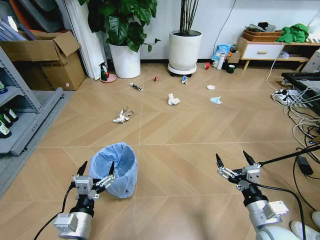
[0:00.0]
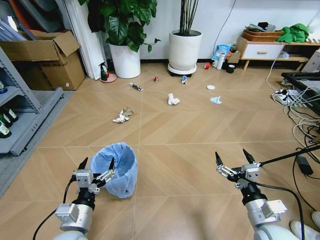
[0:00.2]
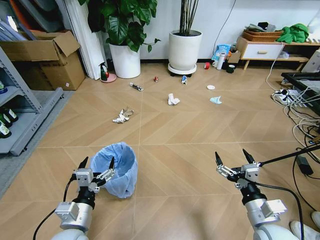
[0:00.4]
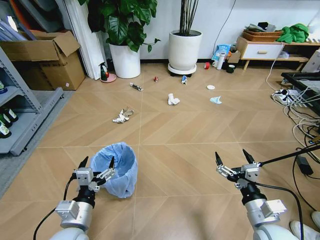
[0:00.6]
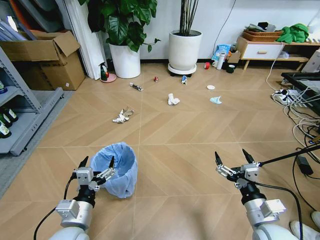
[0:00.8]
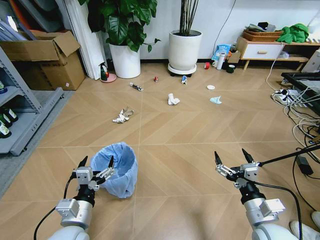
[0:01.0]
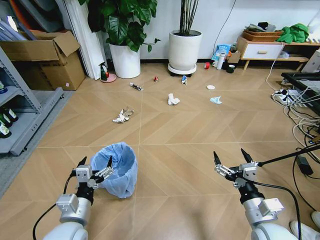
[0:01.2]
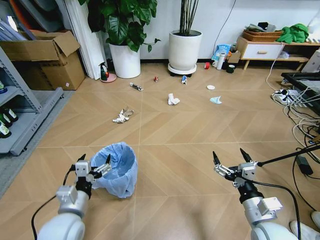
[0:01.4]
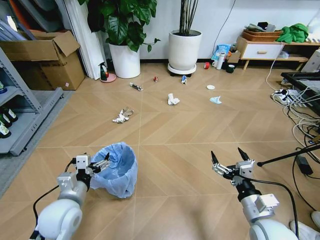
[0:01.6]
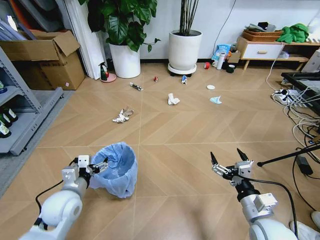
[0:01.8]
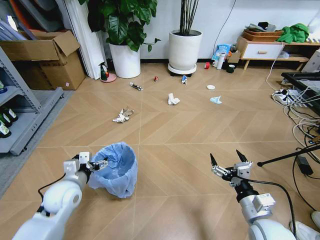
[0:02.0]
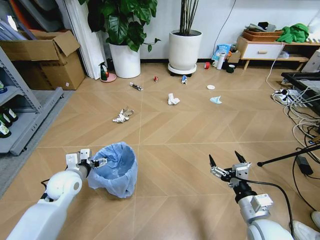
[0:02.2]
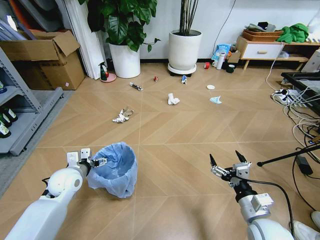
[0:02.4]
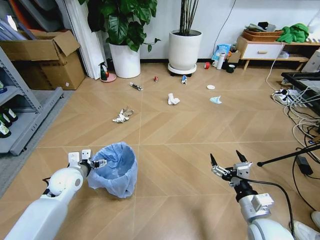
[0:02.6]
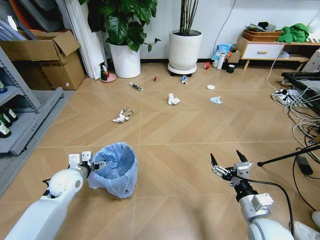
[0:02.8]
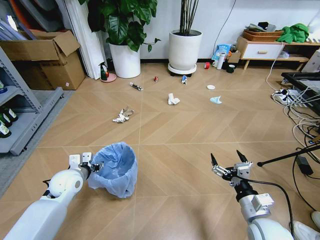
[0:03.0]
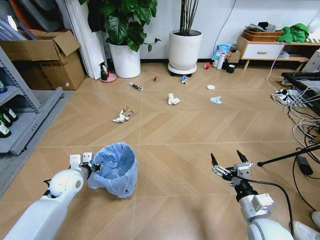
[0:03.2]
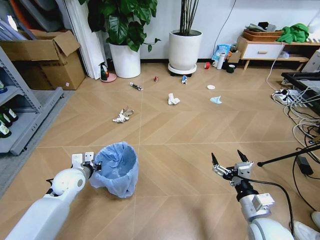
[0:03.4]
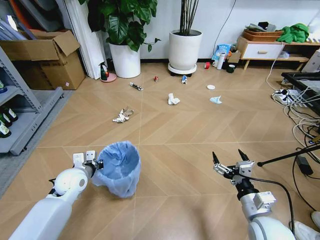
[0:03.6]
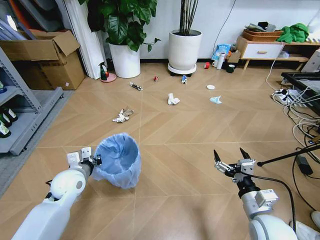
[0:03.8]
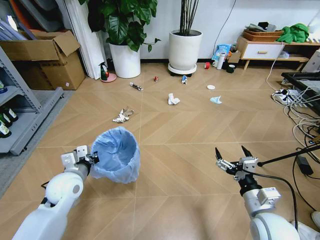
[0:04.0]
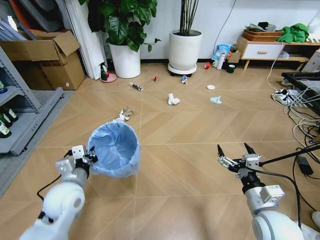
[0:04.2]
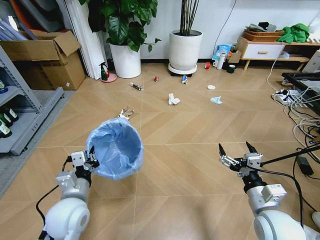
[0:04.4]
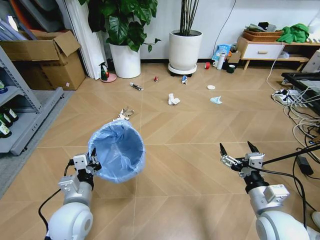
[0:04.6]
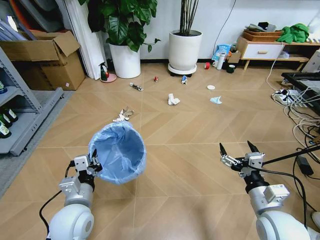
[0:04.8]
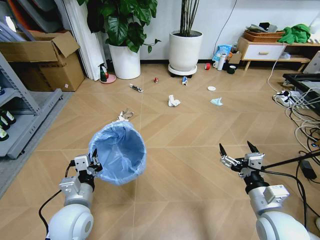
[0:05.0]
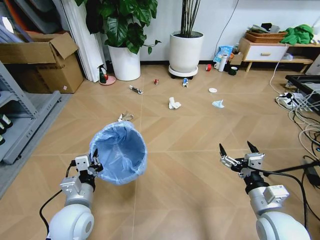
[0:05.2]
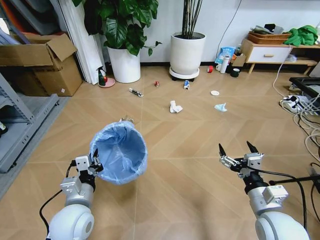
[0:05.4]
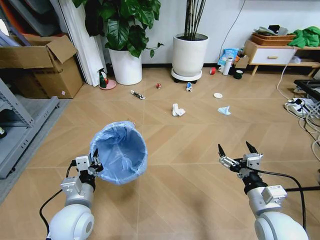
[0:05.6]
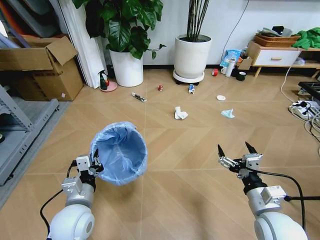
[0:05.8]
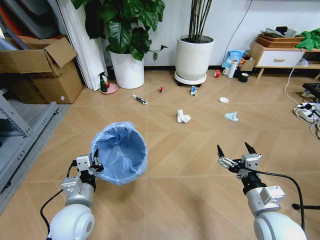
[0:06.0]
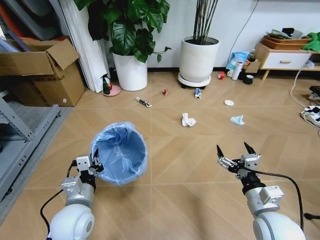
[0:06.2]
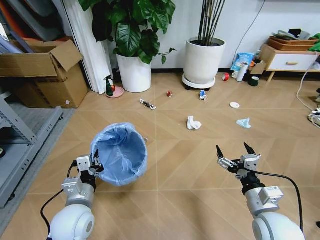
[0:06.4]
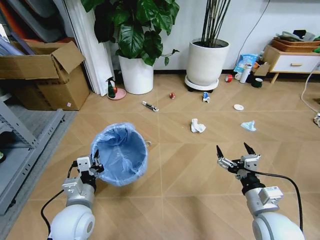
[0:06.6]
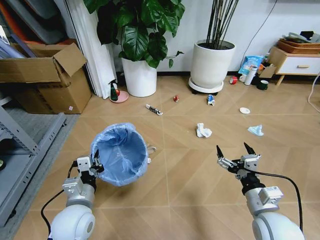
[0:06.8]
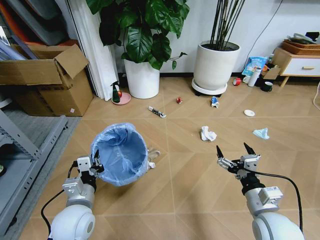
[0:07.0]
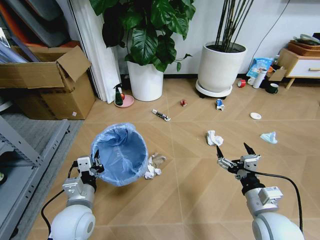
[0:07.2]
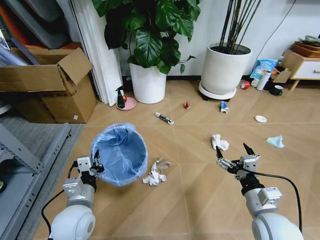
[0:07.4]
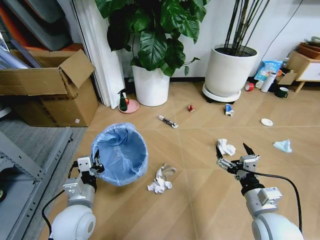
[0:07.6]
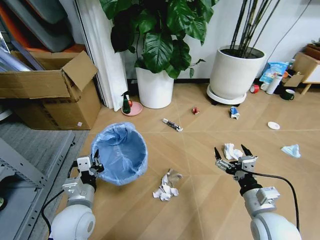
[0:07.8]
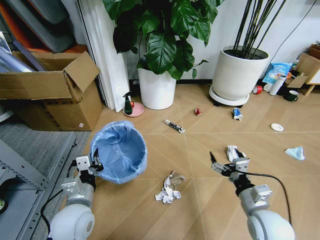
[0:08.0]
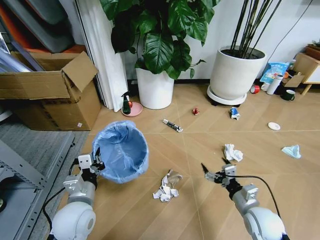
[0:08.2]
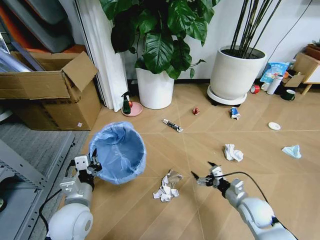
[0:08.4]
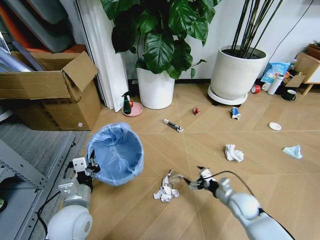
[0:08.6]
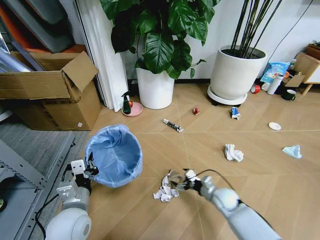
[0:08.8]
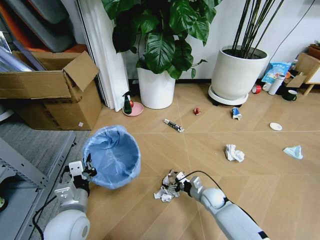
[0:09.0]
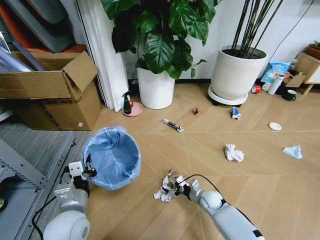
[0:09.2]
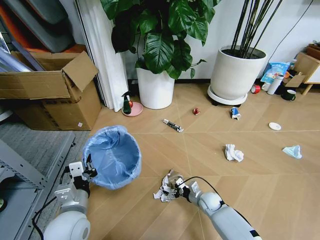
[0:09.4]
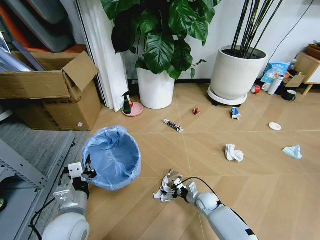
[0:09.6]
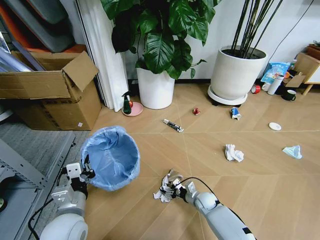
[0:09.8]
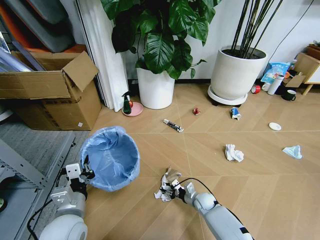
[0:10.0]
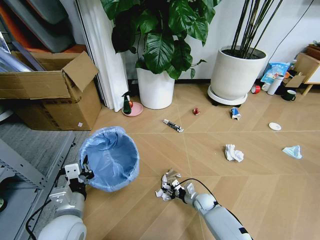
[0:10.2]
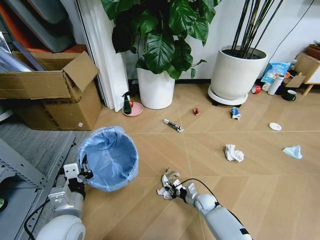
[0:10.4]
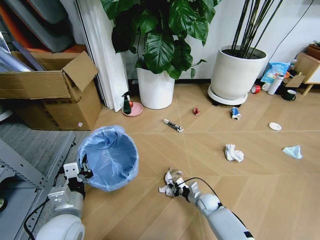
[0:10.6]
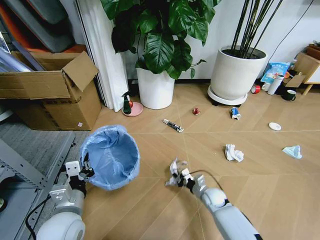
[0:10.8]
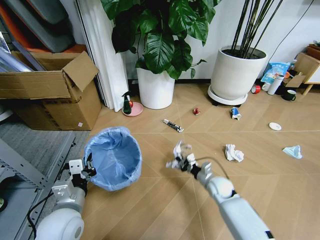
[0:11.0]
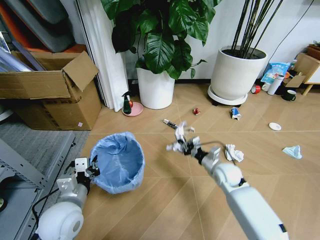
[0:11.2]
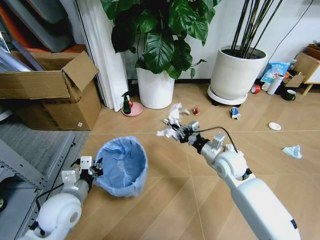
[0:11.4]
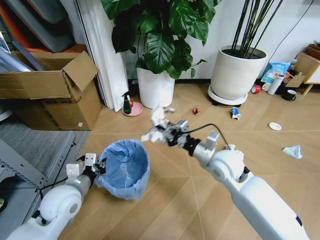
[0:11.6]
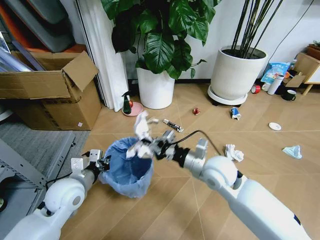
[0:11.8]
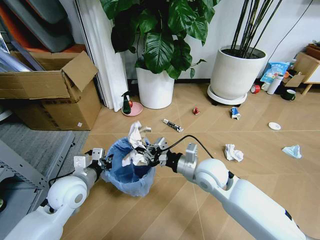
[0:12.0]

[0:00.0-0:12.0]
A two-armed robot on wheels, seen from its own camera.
Task of the whole recording: Pick up the trash bin and place the garbage on the floor into it.
0:01.6 to 0:03.0: The left gripper goes some 15 cm forward and to the left.
0:03.0 to 0:04.4: The left gripper moves backward, to the right and upward, about 15 cm, and closes.
0:07.6 to 0:09.0: The right gripper is displaced downward and forward by roughly 25 cm.
0:09.0 to 0:10.4: The right gripper moves downward, approximately 5 cm, and closes its fingers.
0:10.4 to 0:12.0: The right gripper travels upward by about 30 cm; the left gripper moves forward, approximately 10 cm.

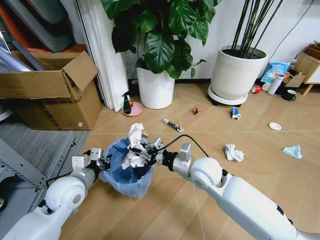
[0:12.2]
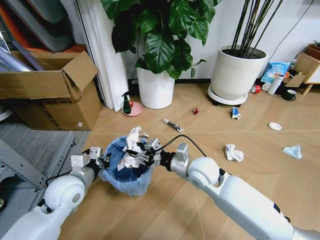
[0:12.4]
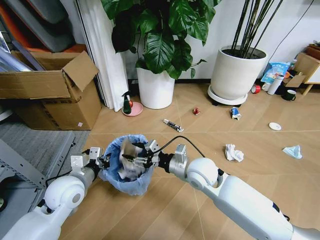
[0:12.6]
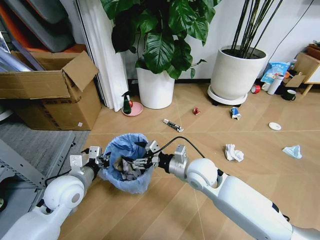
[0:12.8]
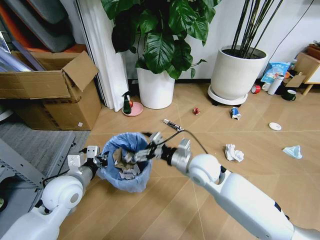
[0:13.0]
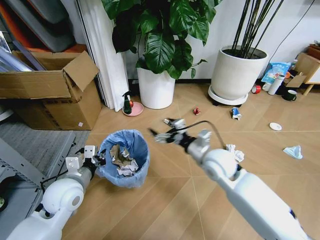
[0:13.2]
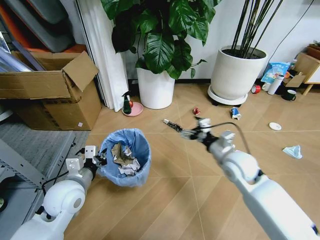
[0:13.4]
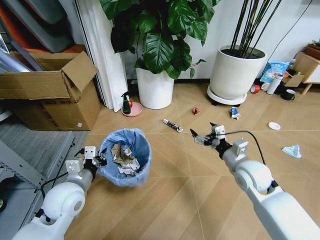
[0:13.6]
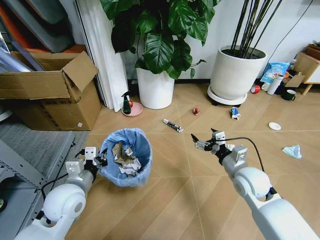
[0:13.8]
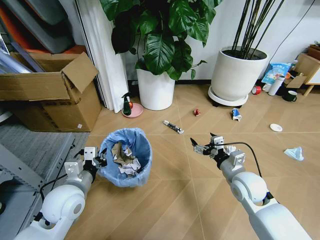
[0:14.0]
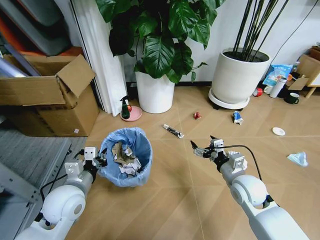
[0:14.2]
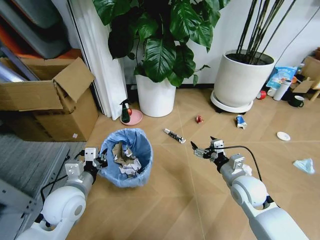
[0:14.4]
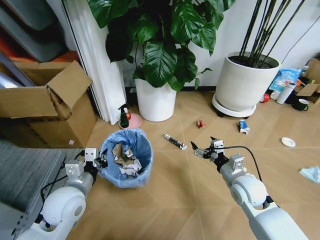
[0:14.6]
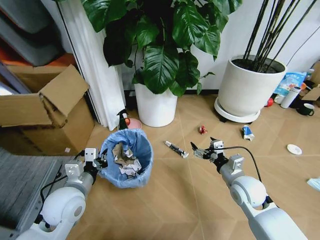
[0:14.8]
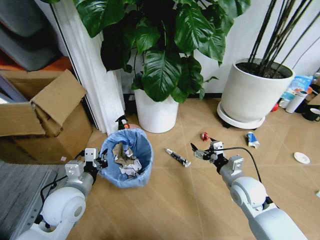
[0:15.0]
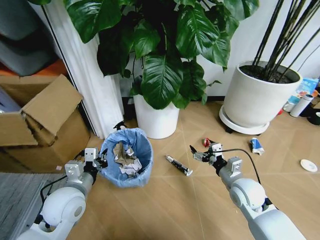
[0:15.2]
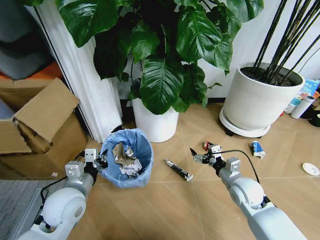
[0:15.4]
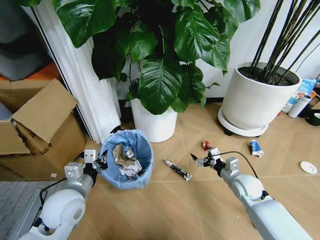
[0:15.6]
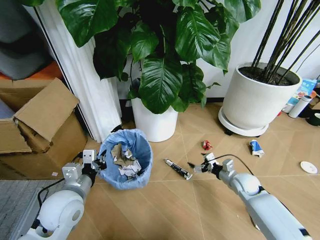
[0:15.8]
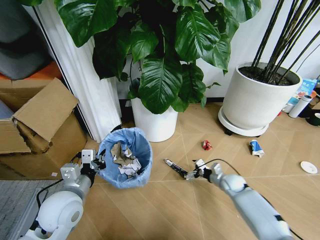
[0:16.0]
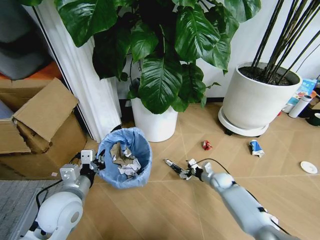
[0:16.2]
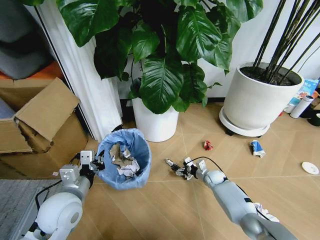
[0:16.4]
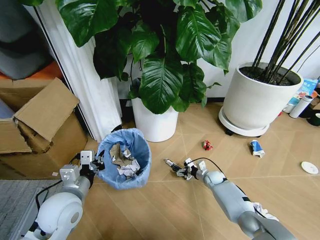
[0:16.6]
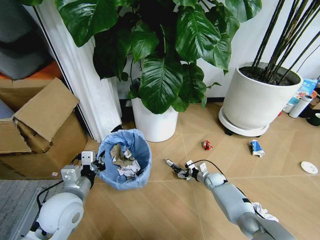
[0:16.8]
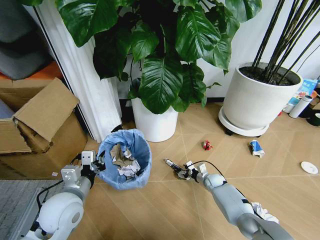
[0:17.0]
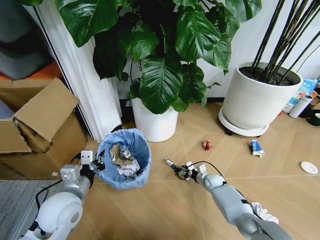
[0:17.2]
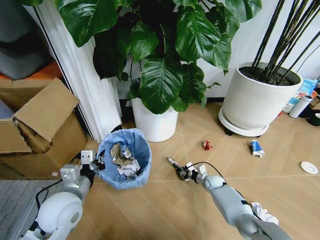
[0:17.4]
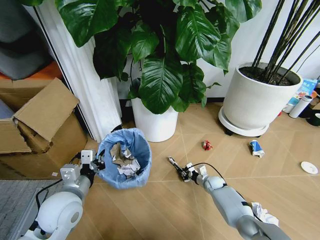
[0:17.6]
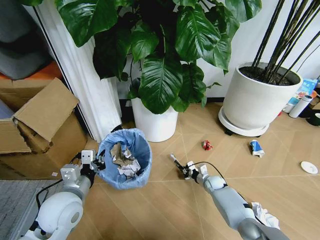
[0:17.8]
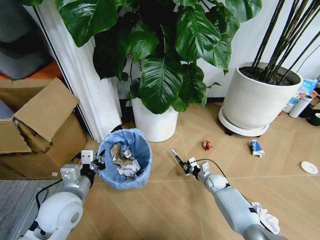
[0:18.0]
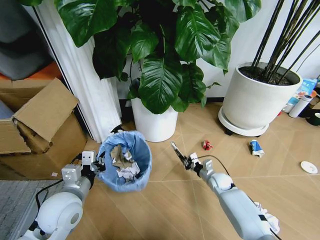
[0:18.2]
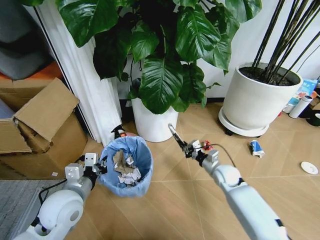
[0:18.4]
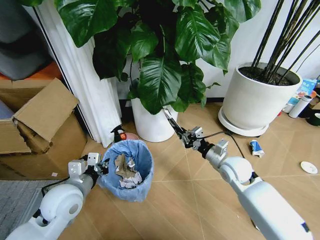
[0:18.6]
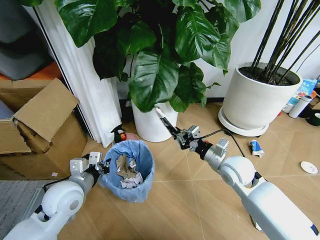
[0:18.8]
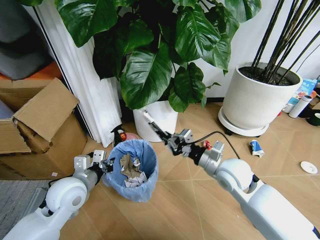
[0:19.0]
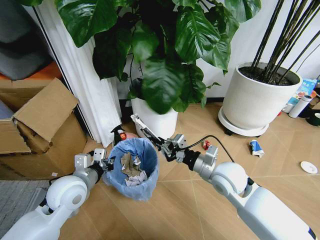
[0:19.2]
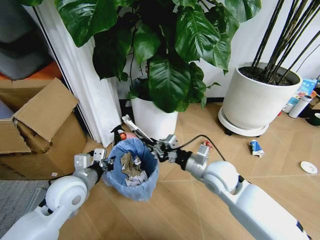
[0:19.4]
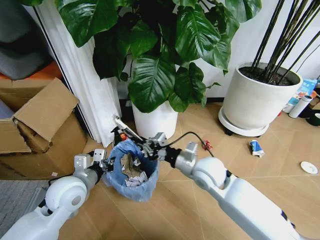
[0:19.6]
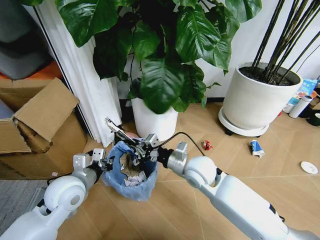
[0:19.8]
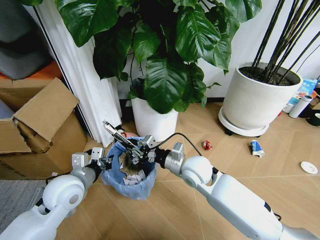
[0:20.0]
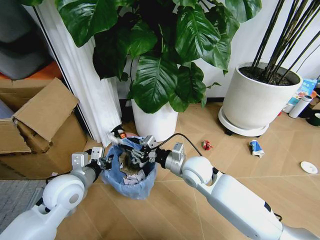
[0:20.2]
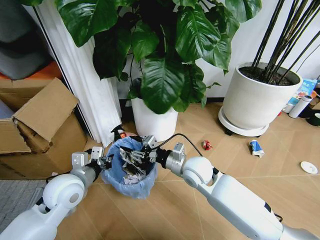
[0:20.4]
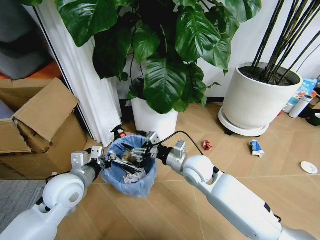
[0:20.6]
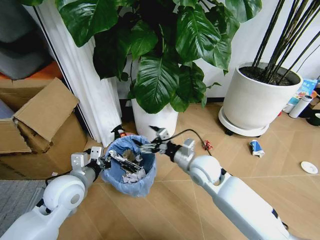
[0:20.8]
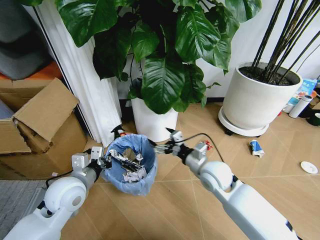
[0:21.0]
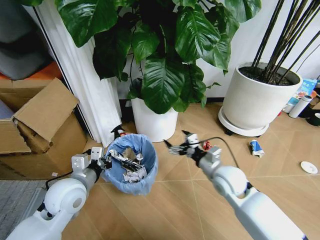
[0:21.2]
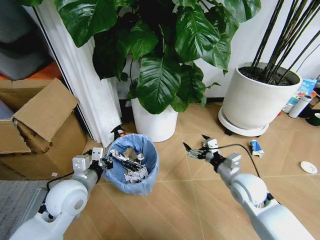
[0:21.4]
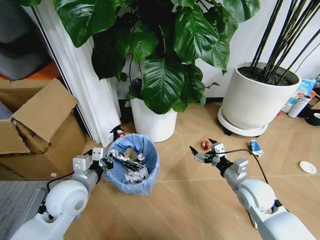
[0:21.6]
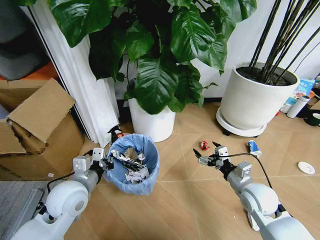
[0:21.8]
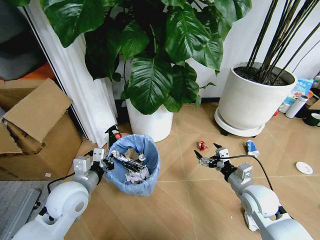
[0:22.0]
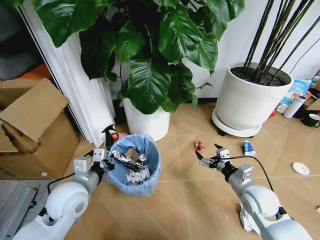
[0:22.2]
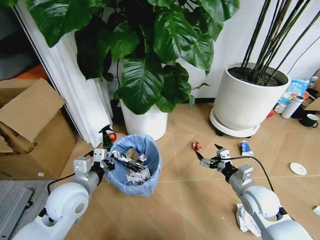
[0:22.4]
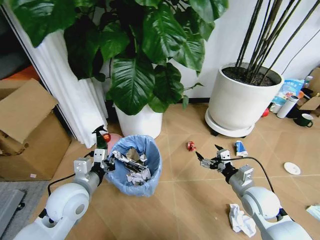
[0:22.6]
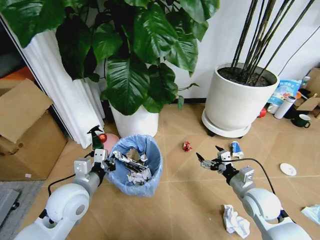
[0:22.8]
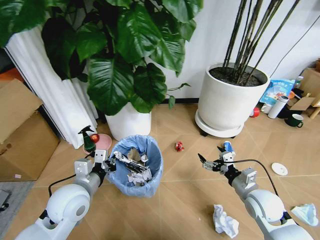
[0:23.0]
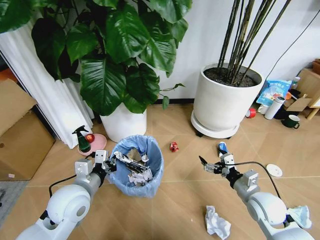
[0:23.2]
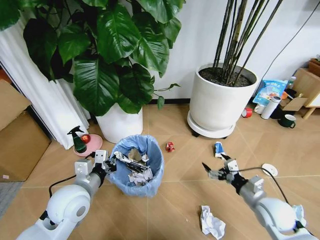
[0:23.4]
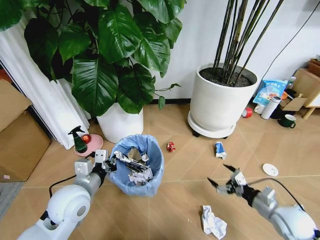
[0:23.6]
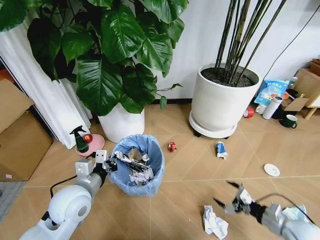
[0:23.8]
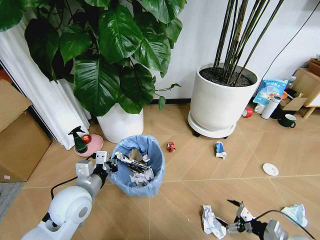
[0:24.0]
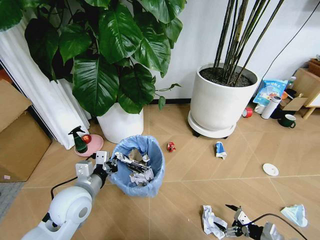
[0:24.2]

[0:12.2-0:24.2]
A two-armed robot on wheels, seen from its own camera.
Task of the whole recording: Pick up the trash bin and place the garbage on the floor into it.
0:12.2 to 0:13.8: The right gripper goes about 15 cm to the right, and opens up.
0:15.2 to 0:16.6: The right gripper is displaced downward and forward by some 25 cm.
0:16.6 to 0:18.2: The right gripper heads upward, covering roughly 5 cm, and closes.
0:18.2 to 0:19.8: The right gripper moves upward and to the left, some 25 cm.
0:19.8 to 0:21.2: The right gripper moves to the right, about 10 cm, and opens.
0:21.2 to 0:22.6: The right gripper travels to the right and backward by some 10 cm.
0:22.6 to 0:24.2: The right gripper goes roughly 20 cm downward, backward and to the right.
